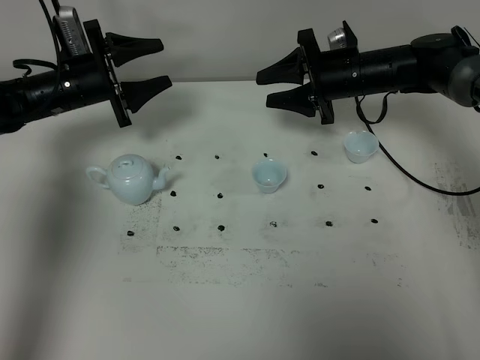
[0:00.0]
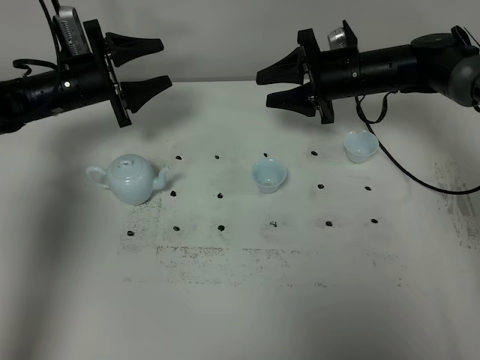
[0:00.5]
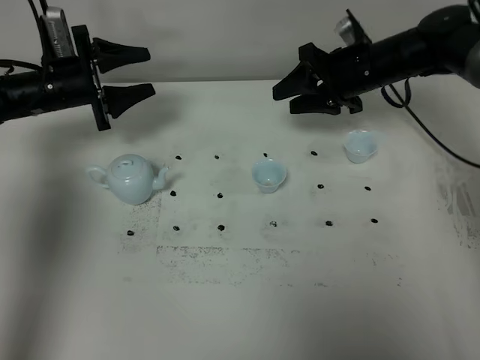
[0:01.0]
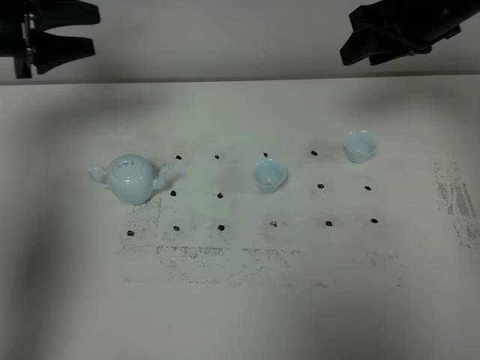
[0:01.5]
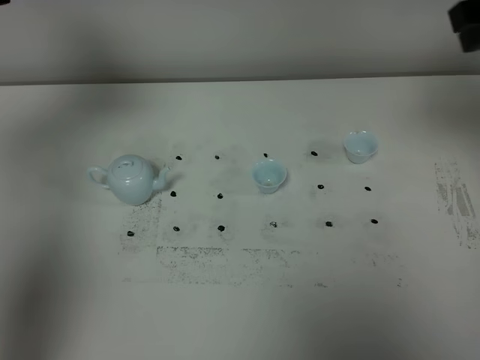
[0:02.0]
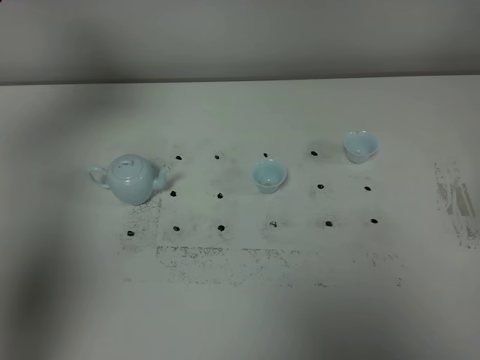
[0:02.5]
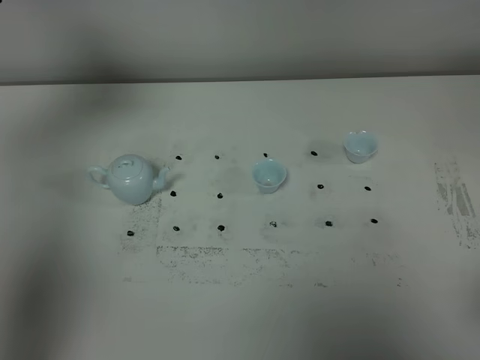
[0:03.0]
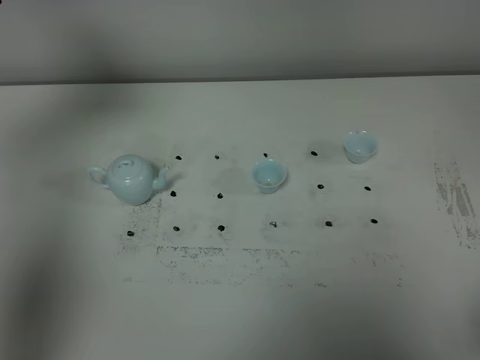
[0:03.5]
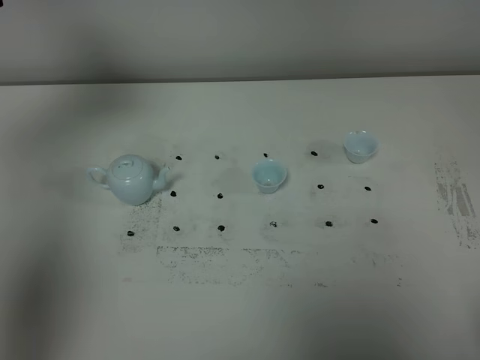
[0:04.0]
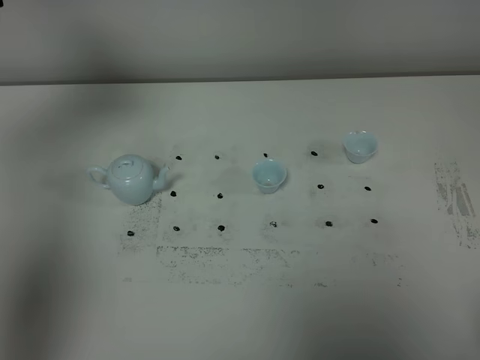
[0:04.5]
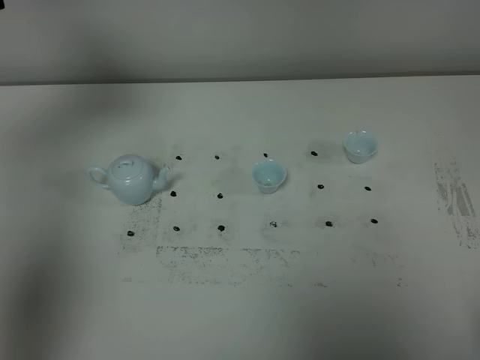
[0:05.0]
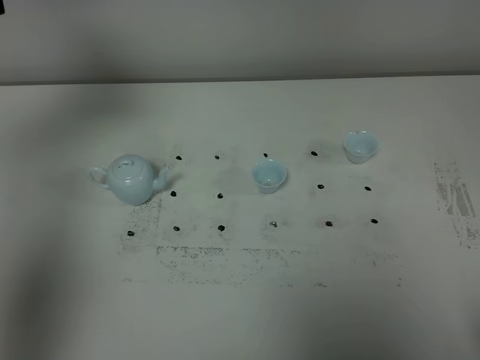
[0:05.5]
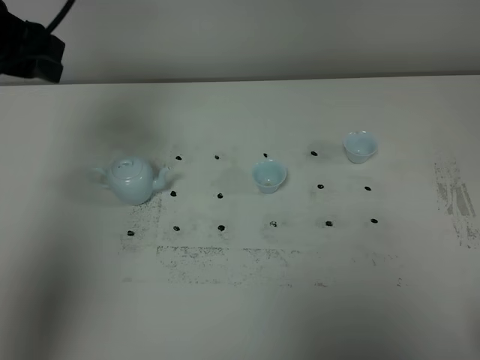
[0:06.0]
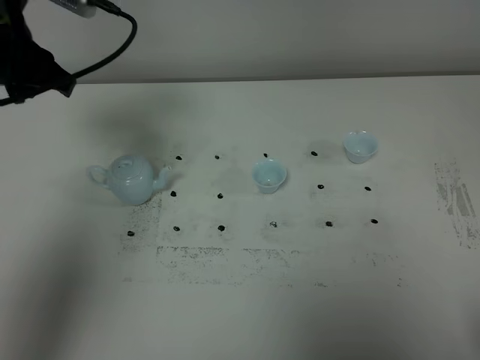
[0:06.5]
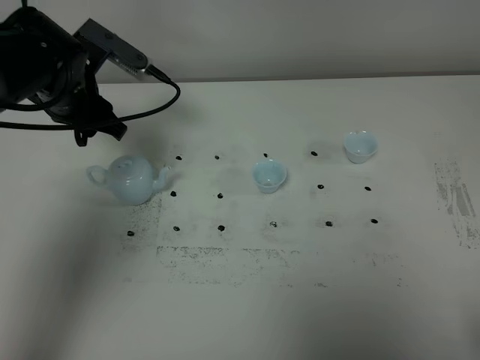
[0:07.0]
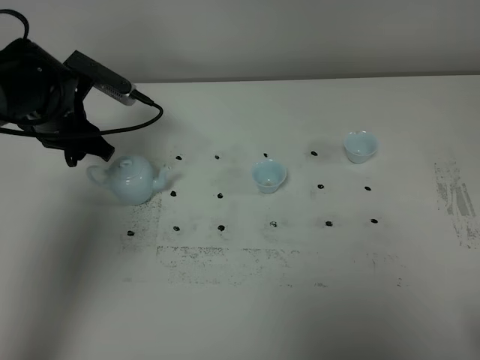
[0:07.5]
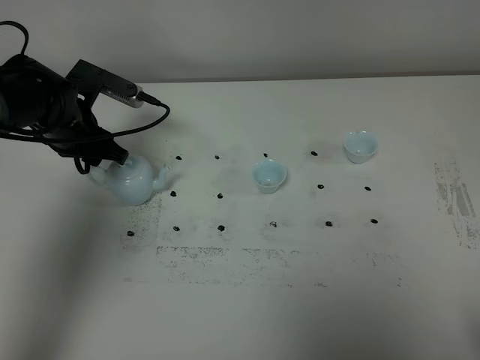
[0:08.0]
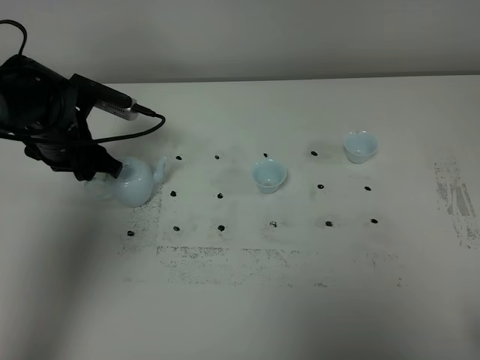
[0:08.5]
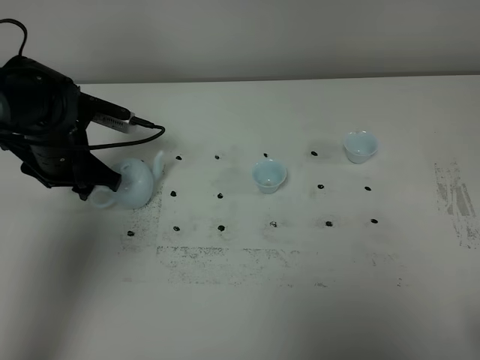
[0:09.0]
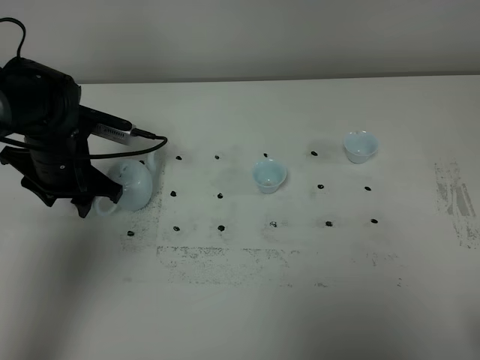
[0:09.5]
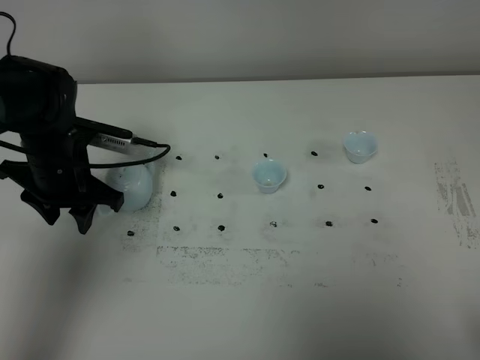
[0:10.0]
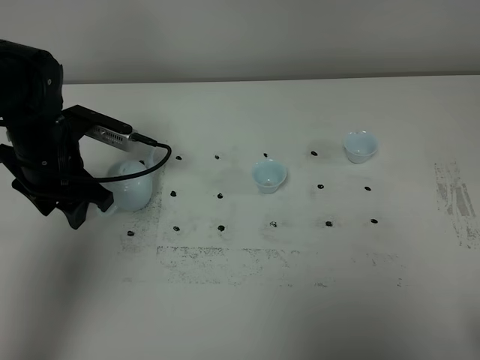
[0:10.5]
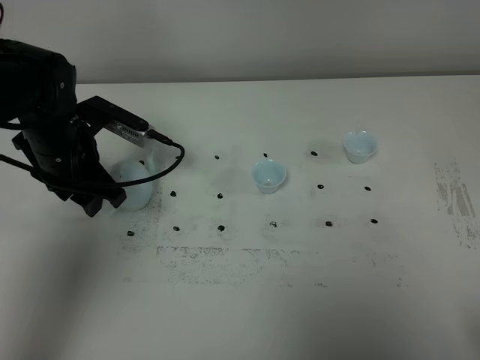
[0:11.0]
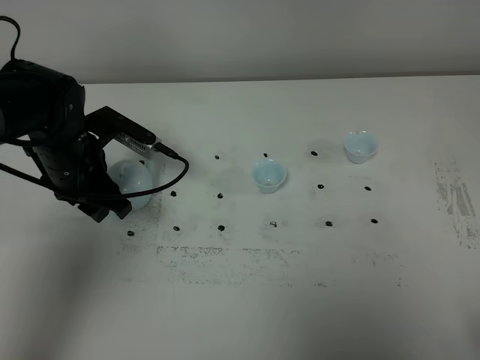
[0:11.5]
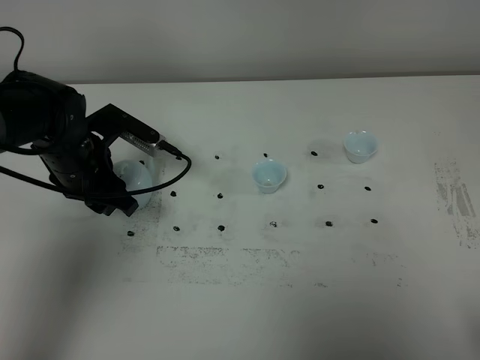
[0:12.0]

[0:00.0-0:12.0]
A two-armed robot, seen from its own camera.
Task of the whole recording: grasp the blue porcelain teapot and pour the tea into the two blue porcelain teacups one by one, put the blue porcelain teapot back in its original place.
0:00.0 to 0:02.0: Both grippers move upward and backward, some 30 cm.
0:02.0 to 0:04.0: The right gripper travels backward and downward by about 35 cm.
0:04.0 to 0:06.0: The left gripper heads to the right, covering approximately 10 cm.
0:06.0 to 0:08.0: The left gripper heads downward, covering roughly 20 cm.
0:08.0 to 0:10.0: The left gripper is displaced backward by about 5 cm.

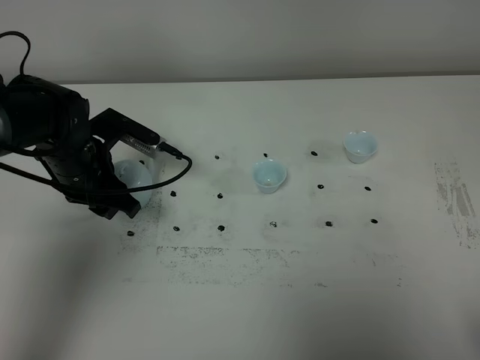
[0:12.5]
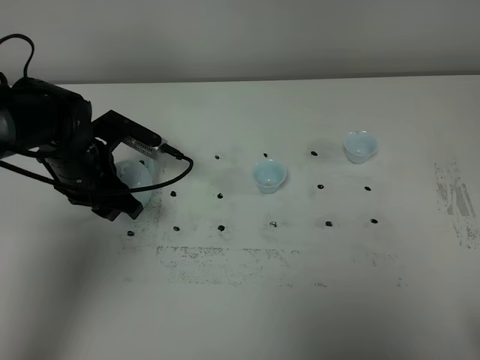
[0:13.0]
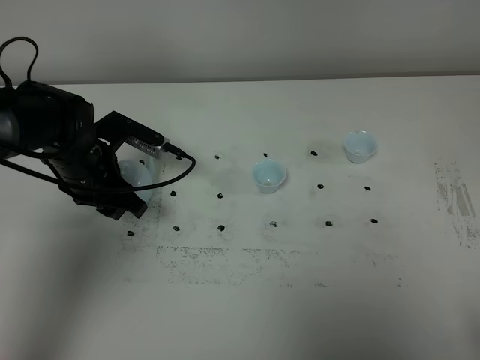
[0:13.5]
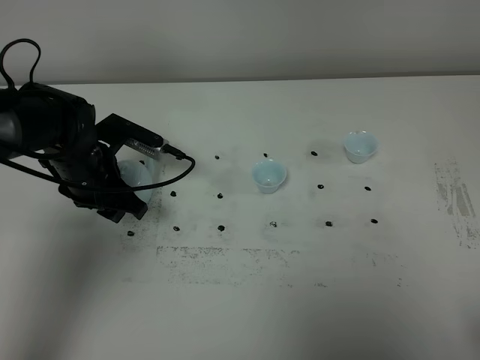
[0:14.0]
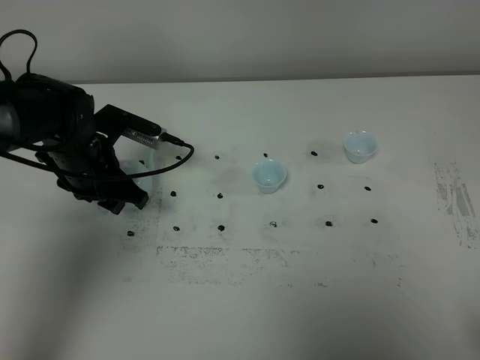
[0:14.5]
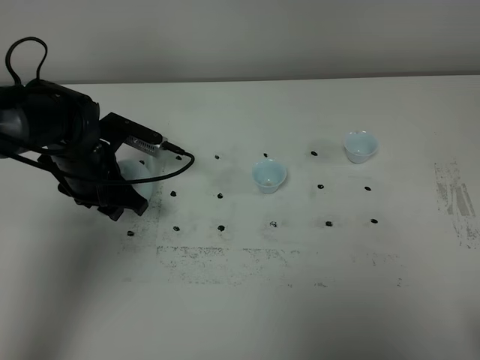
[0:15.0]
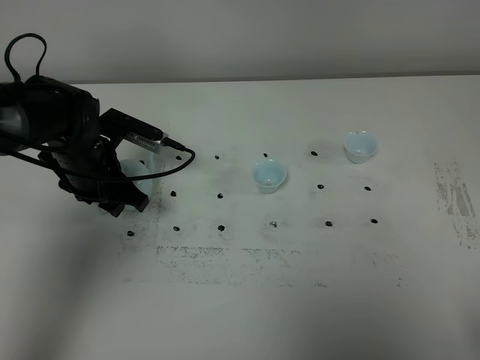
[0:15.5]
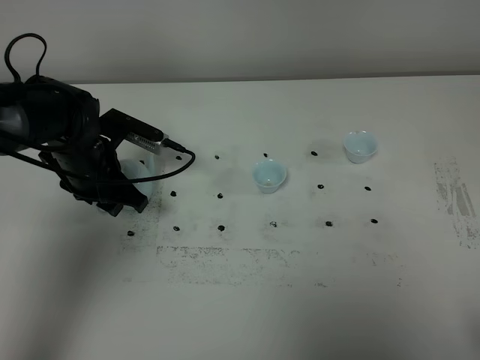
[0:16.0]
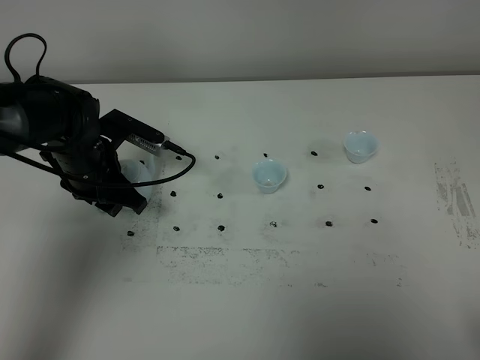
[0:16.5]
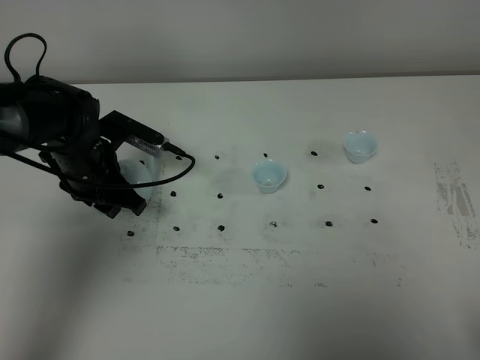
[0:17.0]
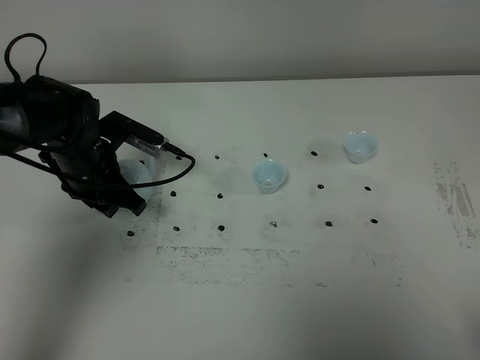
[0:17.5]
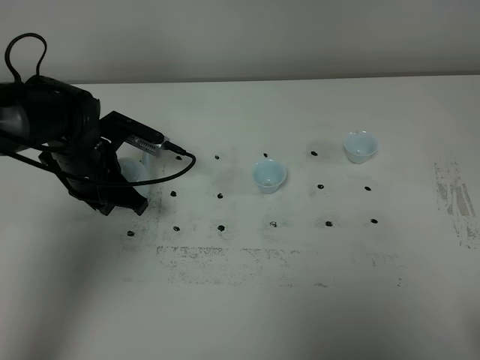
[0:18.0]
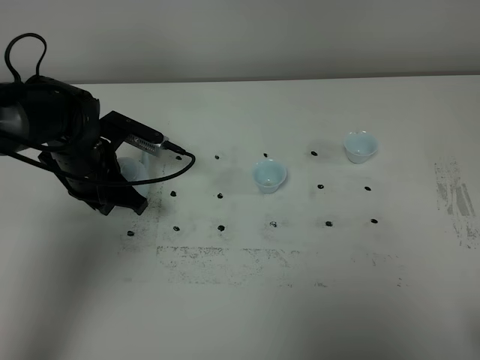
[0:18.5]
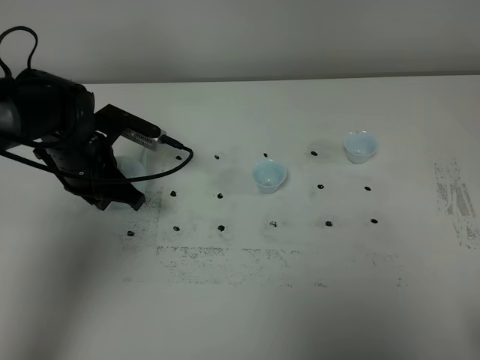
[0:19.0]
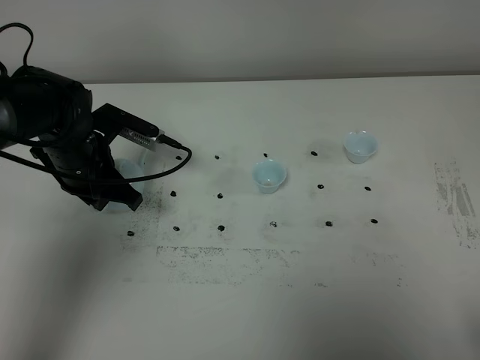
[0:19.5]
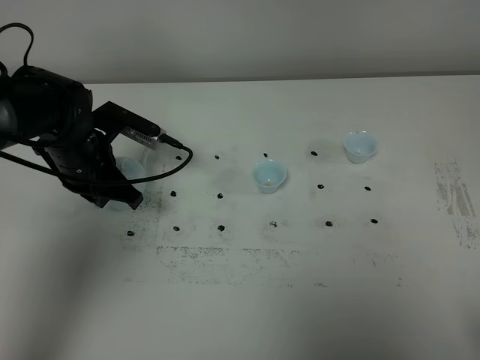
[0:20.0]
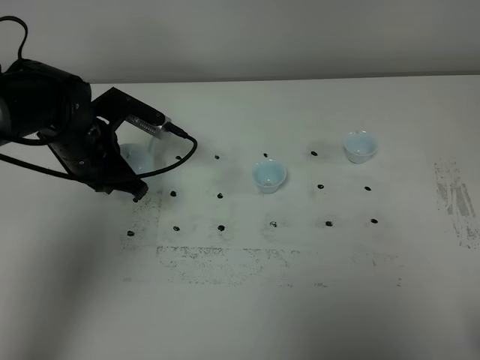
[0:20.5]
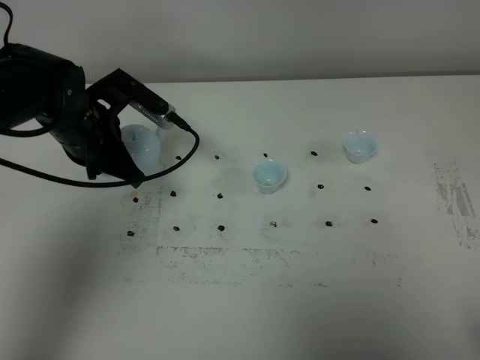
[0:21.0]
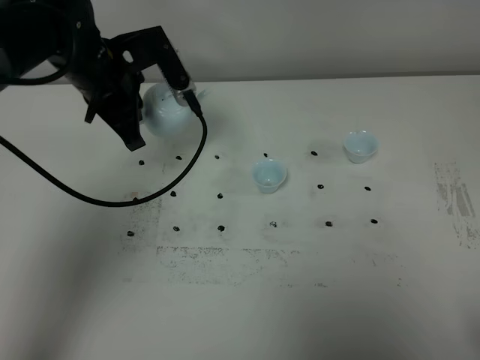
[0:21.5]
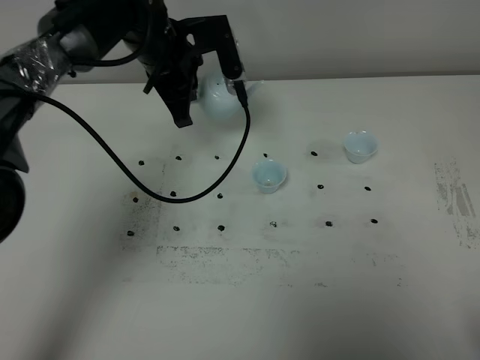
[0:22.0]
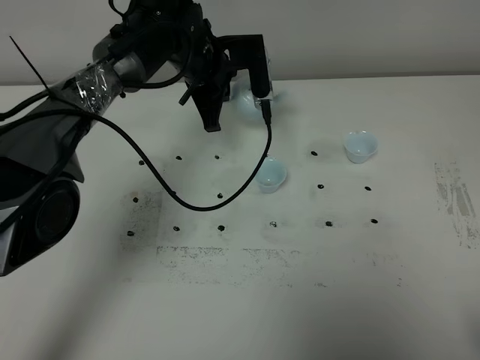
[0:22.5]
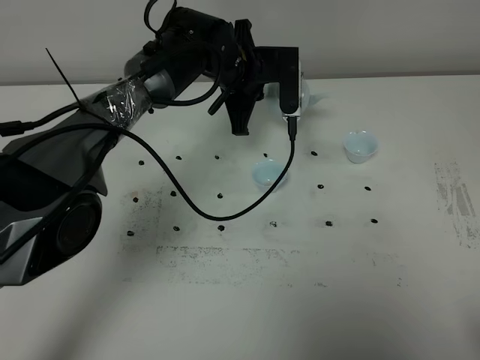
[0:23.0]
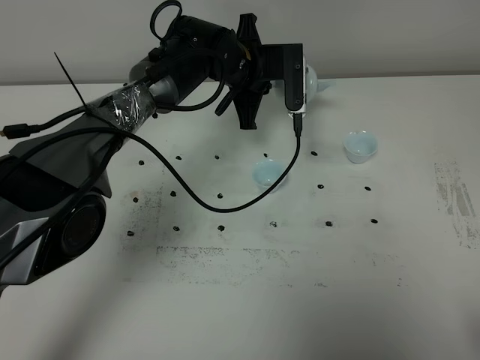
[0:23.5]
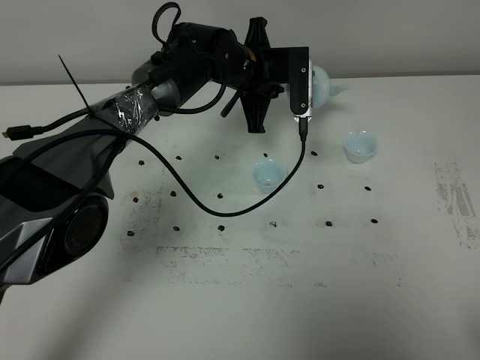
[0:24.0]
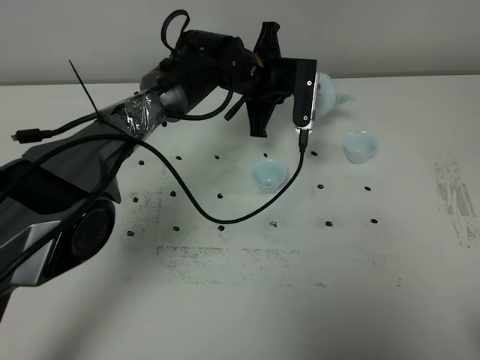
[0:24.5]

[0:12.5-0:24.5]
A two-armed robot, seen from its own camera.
Task of the whole recording: grasp the blue porcelain teapot and pour the tea into the two blue porcelain teacups one by one, put the blue porcelain teapot back in its original place.
Step, 0:12.5 to 0:20.0: Pick up the teapot with the left gripper.
0:12.5 to 0:14.5: The grippers make only small movements.
0:14.5 to 0:16.5: Both grippers stay about where they are.
0:16.5 to 0:18.5: The left gripper closes.
0:18.5 to 0:20.5: There are only small adjustments of the grippers.
0:20.5 to 0:22.5: The left gripper goes approximately 20 cm to the right and forward.
0:22.5 to 0:24.5: The left gripper shifts about 5 cm to the right.

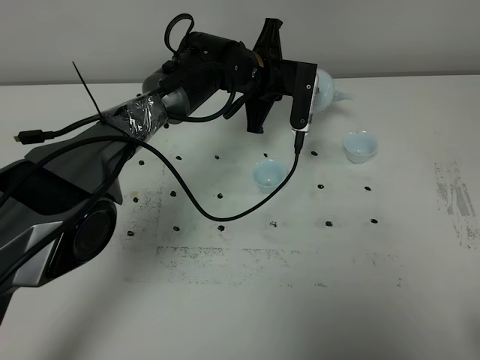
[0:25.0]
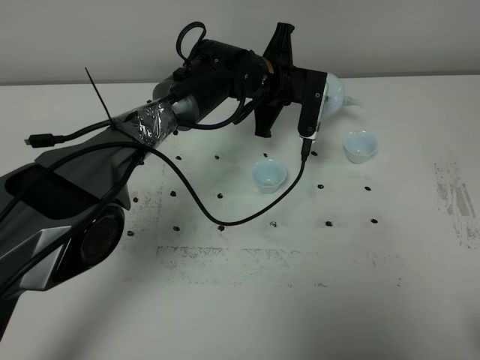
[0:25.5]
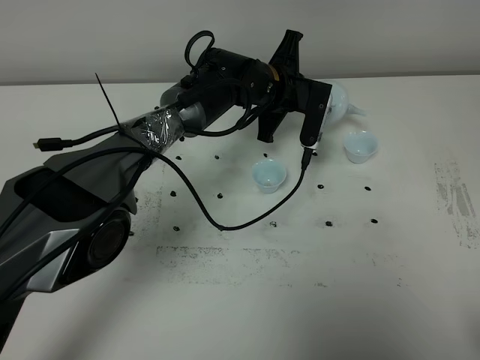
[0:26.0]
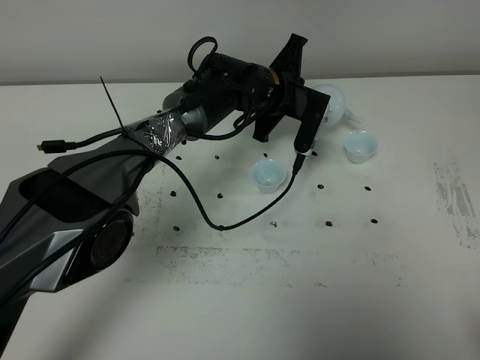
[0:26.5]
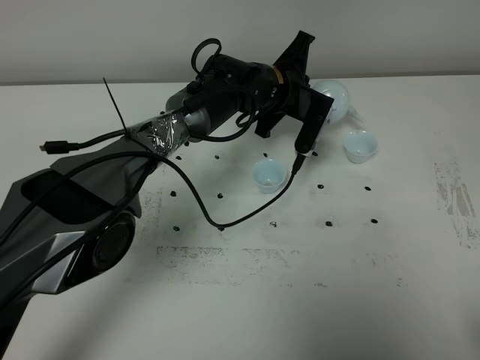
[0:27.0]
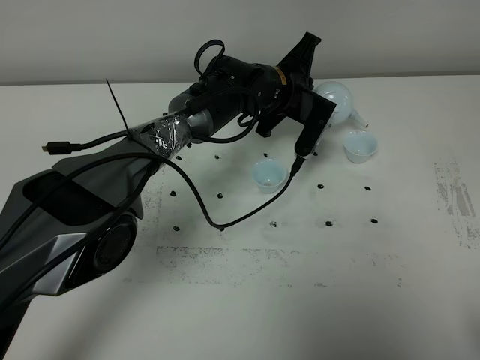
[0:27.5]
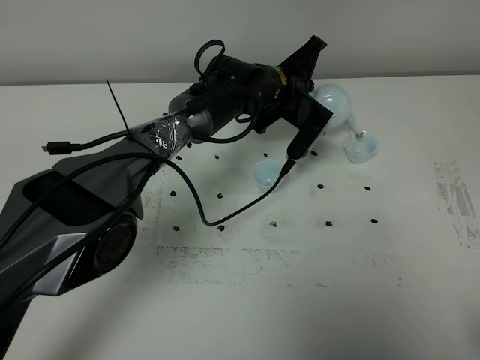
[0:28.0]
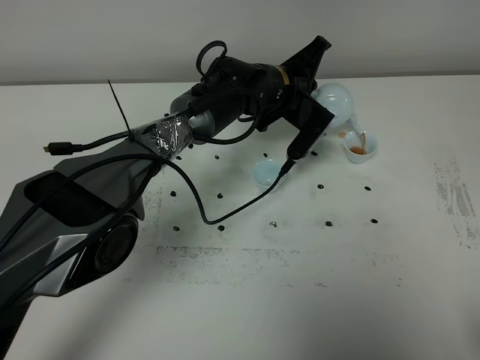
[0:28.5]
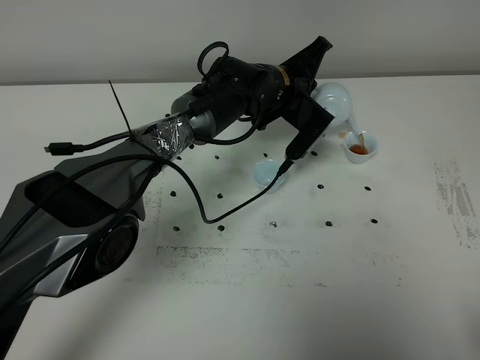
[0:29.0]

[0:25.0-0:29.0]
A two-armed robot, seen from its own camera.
Task of the whole recording: grasp the blue porcelain teapot and pour the tea into the two blue porcelain teacups one by one, put the blue porcelain teapot back in its original place.
0:25.0 to 0:27.0: The grippers make only small movements.
0:27.0 to 0:29.0: The grippers stay close to where they were, moving slightly.
